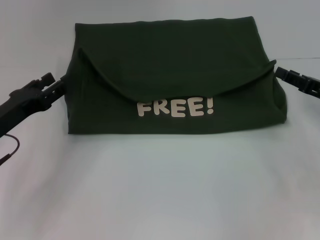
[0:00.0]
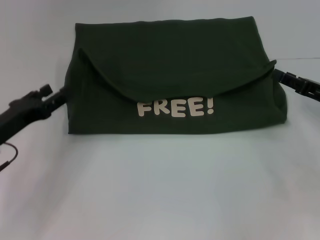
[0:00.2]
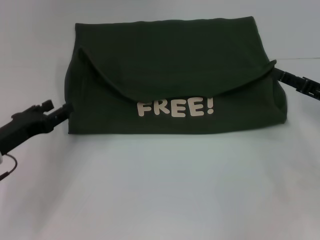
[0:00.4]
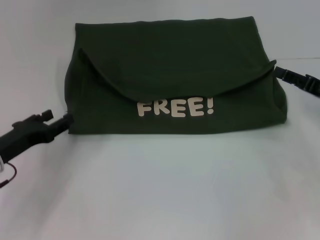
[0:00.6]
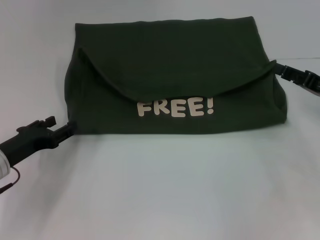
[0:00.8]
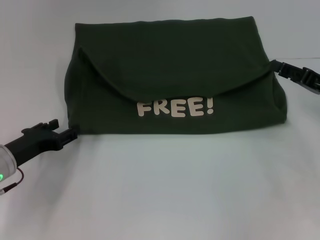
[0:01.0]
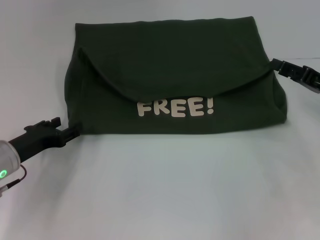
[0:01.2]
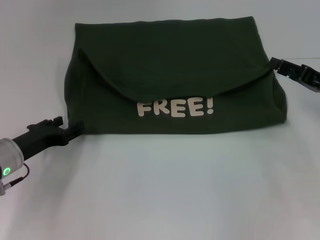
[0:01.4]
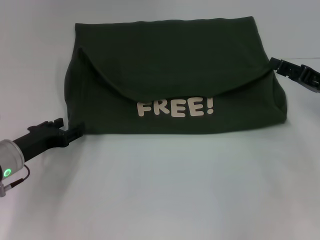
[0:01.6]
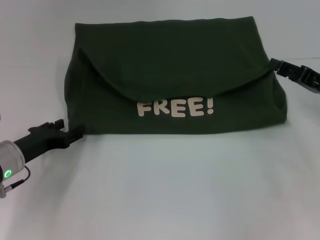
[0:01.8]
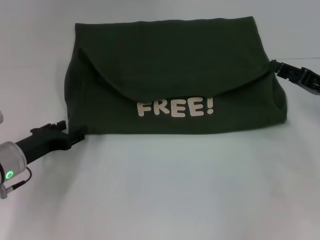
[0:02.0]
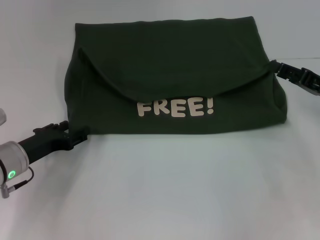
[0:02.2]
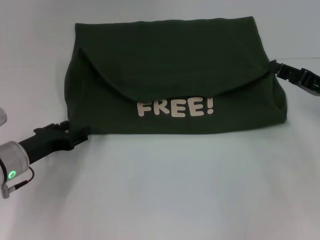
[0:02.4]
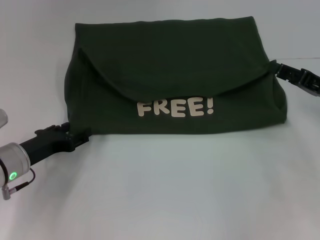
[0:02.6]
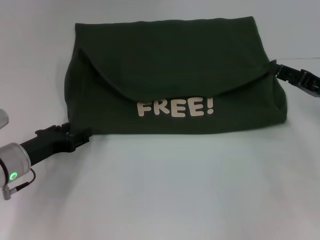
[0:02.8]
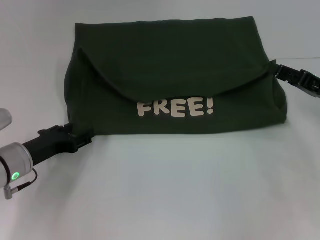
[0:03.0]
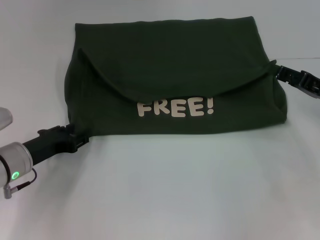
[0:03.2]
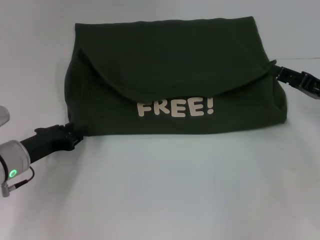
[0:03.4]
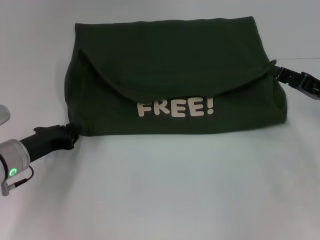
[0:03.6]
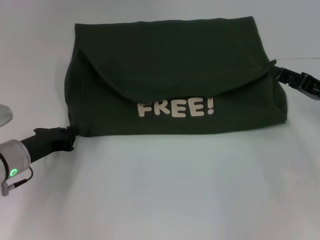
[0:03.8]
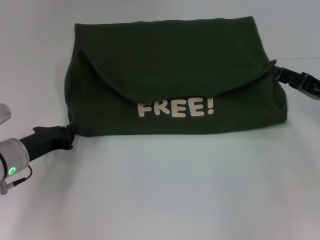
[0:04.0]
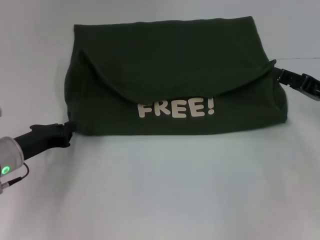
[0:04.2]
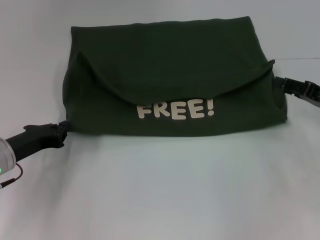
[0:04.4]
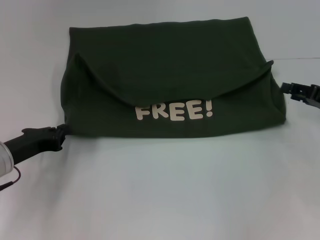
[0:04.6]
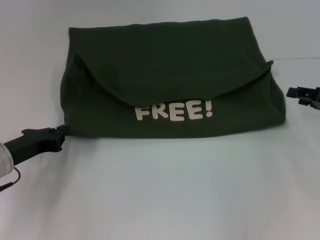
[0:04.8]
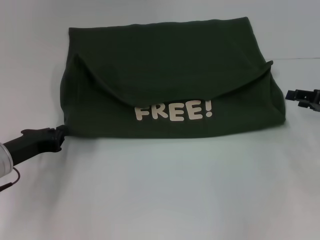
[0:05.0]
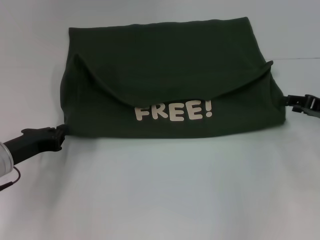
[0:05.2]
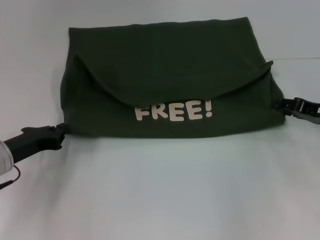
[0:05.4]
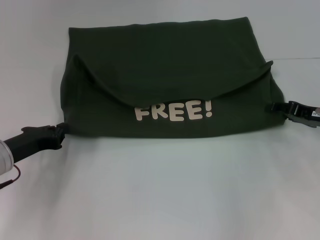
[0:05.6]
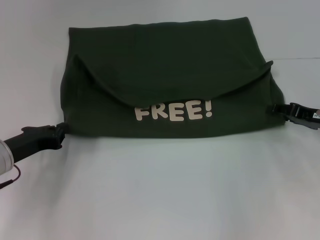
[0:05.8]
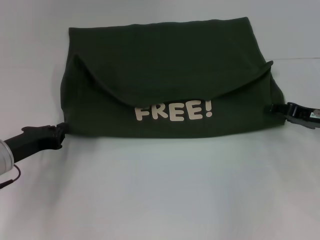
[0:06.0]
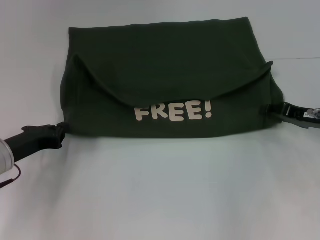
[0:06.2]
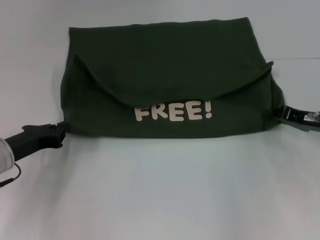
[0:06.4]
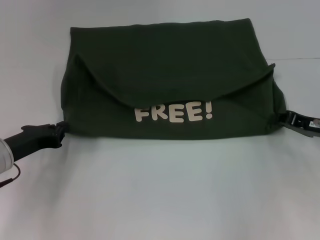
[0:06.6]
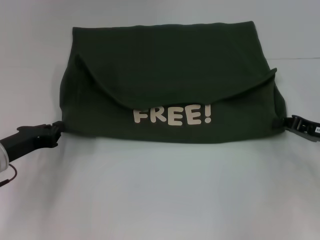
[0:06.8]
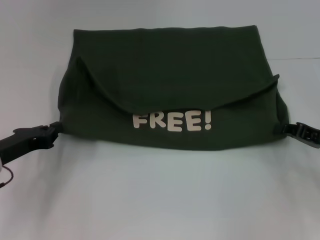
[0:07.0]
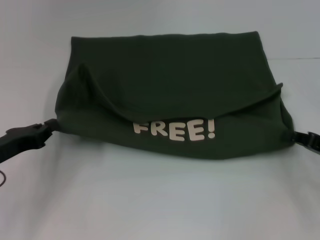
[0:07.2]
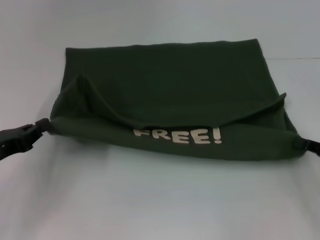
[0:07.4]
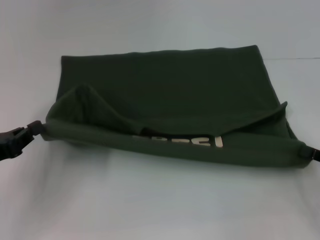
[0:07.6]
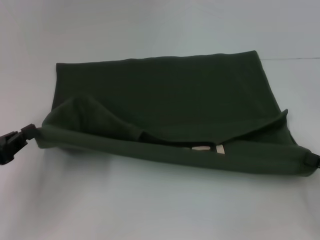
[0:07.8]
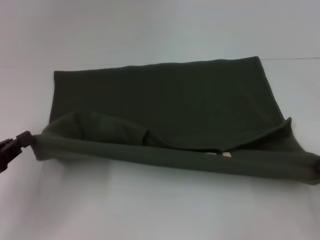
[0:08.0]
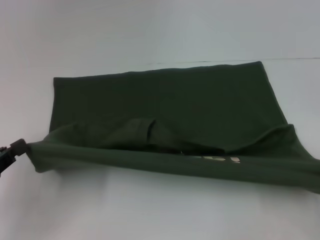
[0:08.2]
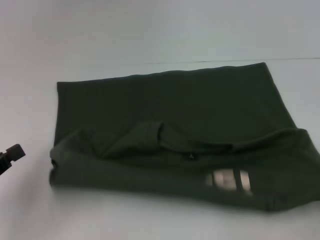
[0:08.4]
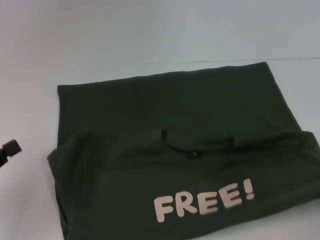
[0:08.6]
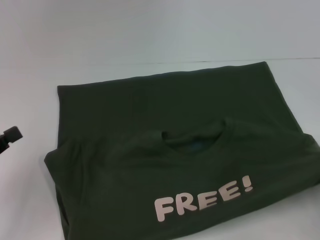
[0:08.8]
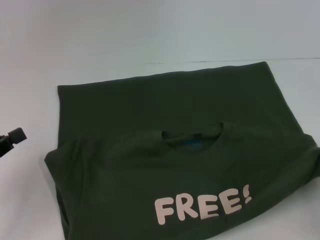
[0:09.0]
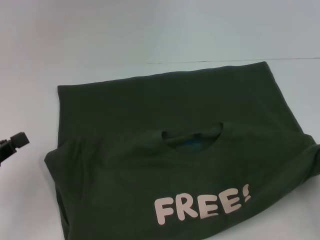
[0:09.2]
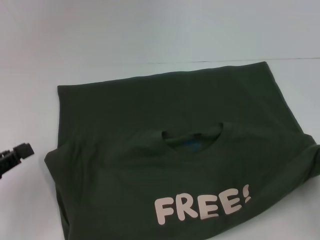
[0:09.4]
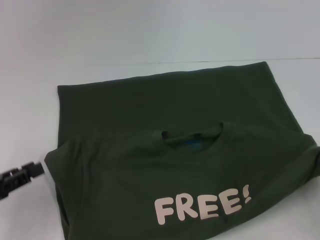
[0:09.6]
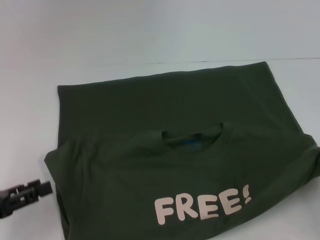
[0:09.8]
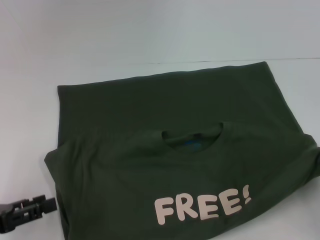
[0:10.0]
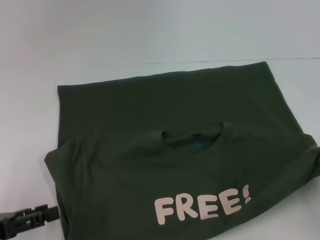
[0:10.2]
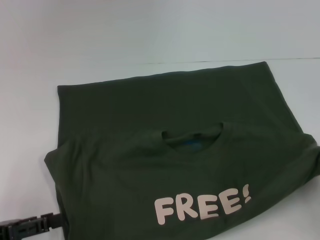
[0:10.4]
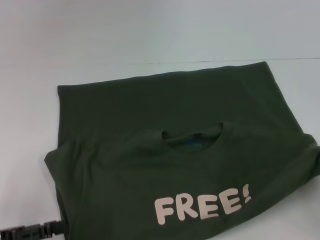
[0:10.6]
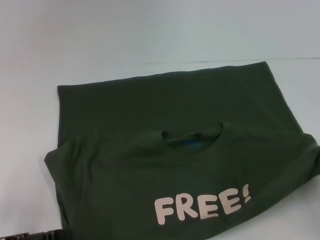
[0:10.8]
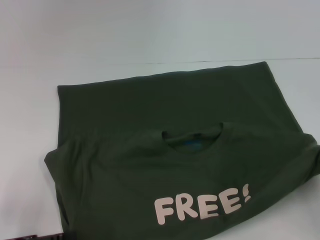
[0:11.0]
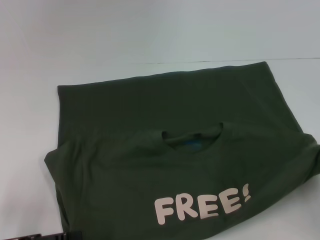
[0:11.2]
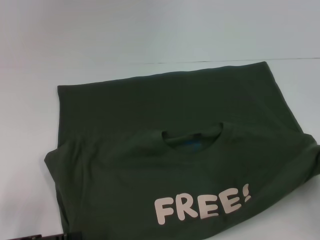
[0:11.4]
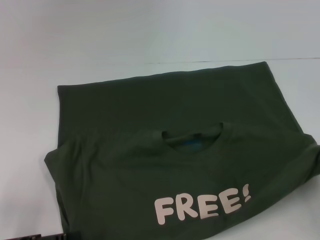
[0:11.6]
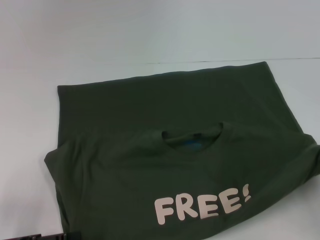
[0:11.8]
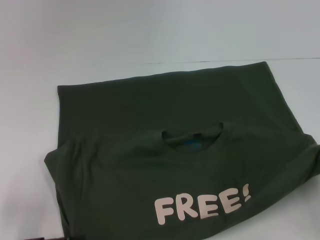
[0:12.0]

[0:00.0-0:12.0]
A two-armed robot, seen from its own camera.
0:00.0 to 0:01.6: The left gripper shifts by some 5 cm.
0:01.6 to 0:03.0: The two grippers keep their place.
0:03.0 to 0:04.4: The left gripper closes.
0:04.4 to 0:06.0: The grippers make only small movements.
0:06.0 to 0:07.6: The right gripper shifts roughly 10 cm backward, and closes; the left gripper heads backward, covering roughly 5 cm.
0:09.0 to 0:10.4: The left gripper opens its fingers.
0:10.4 to 0:12.0: The grippers move only a little.

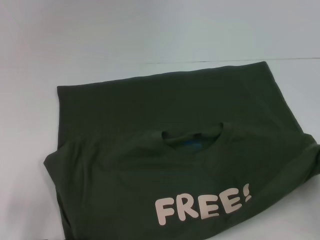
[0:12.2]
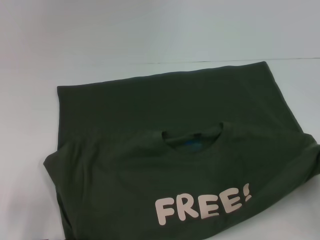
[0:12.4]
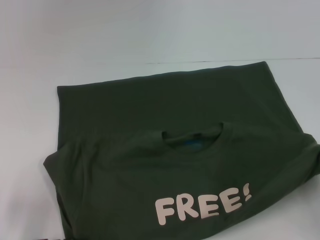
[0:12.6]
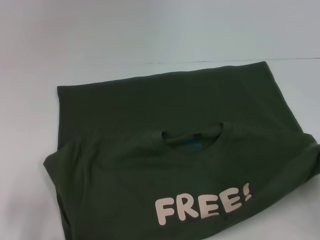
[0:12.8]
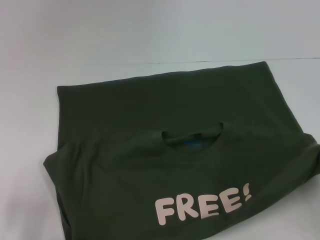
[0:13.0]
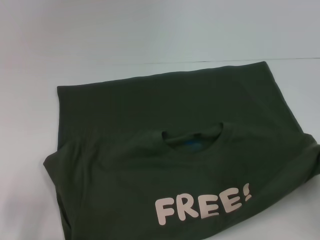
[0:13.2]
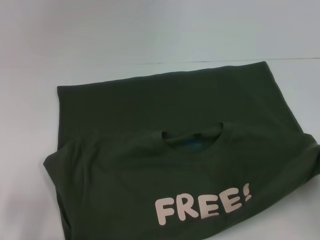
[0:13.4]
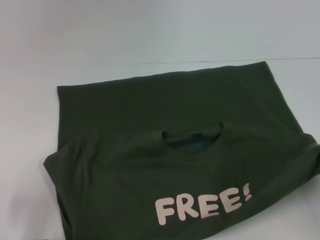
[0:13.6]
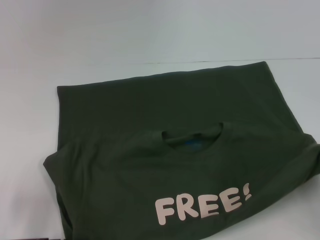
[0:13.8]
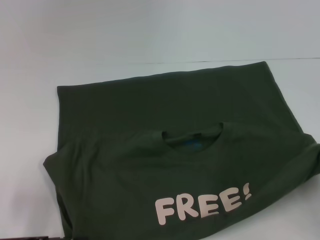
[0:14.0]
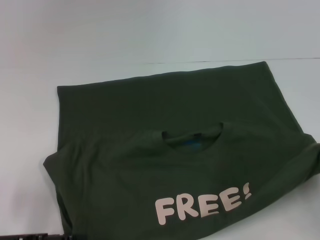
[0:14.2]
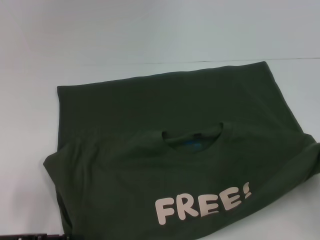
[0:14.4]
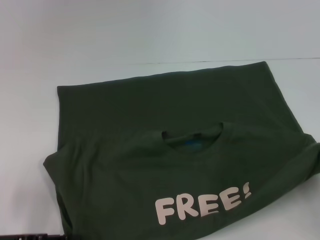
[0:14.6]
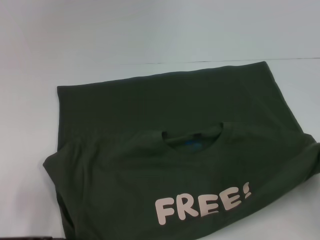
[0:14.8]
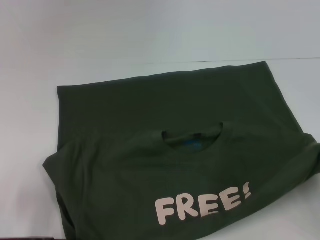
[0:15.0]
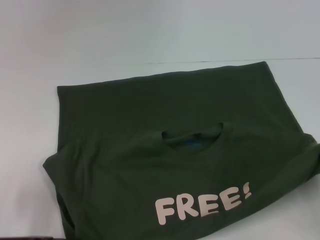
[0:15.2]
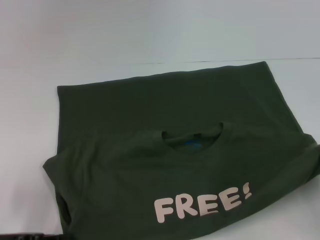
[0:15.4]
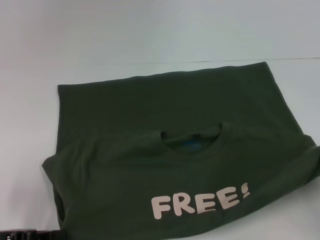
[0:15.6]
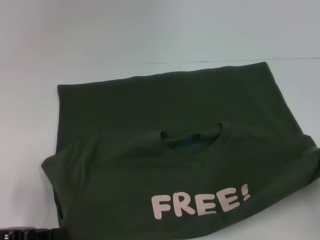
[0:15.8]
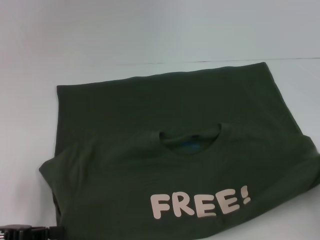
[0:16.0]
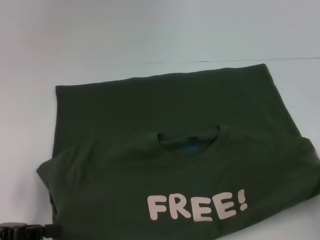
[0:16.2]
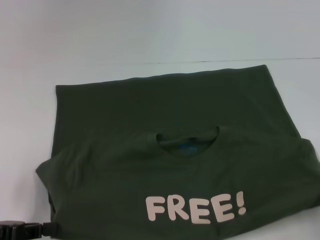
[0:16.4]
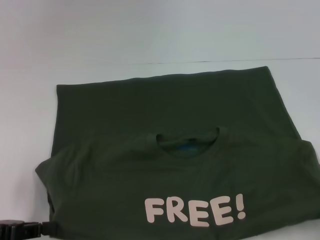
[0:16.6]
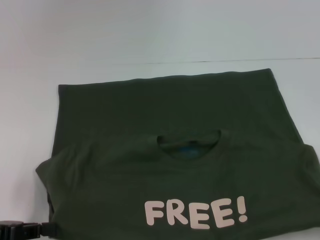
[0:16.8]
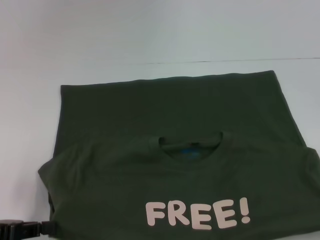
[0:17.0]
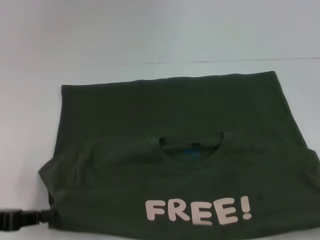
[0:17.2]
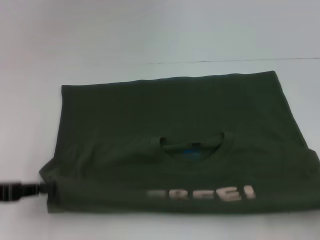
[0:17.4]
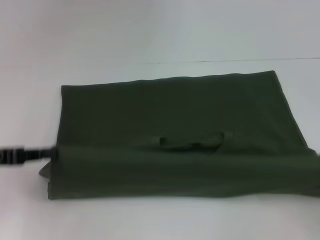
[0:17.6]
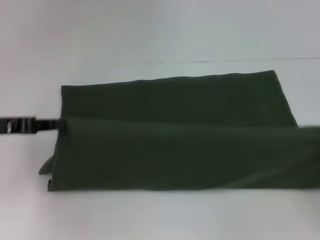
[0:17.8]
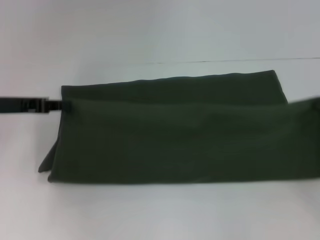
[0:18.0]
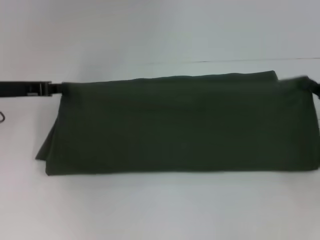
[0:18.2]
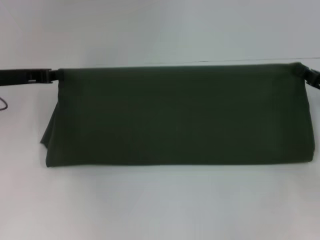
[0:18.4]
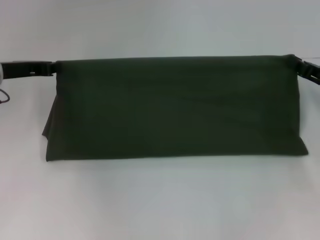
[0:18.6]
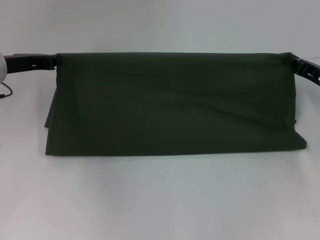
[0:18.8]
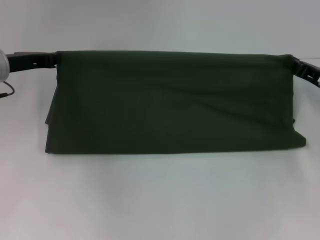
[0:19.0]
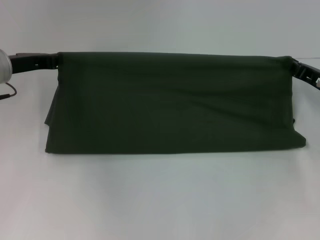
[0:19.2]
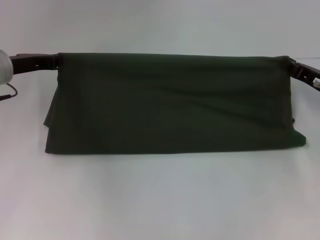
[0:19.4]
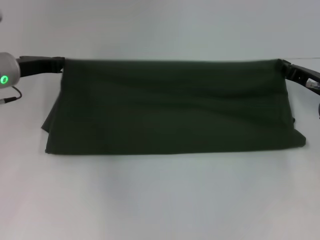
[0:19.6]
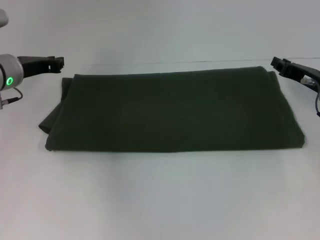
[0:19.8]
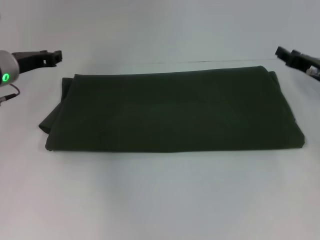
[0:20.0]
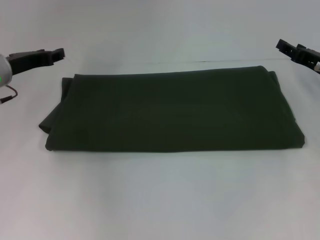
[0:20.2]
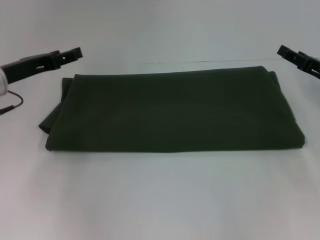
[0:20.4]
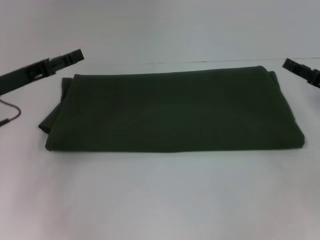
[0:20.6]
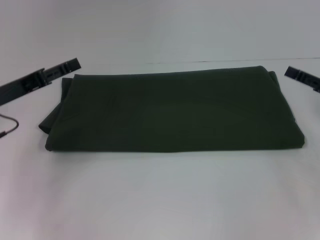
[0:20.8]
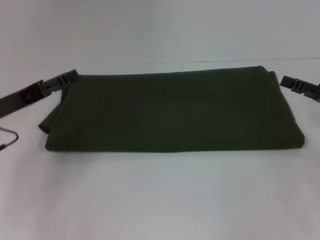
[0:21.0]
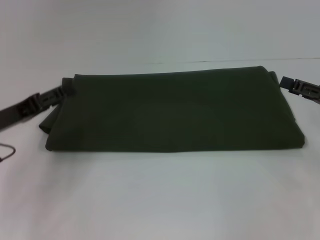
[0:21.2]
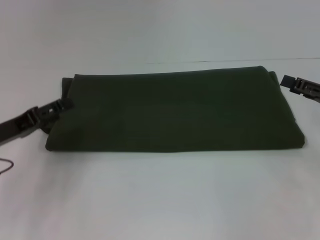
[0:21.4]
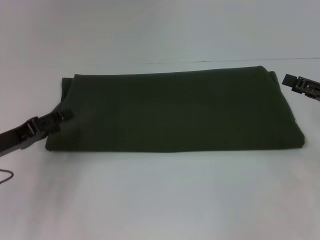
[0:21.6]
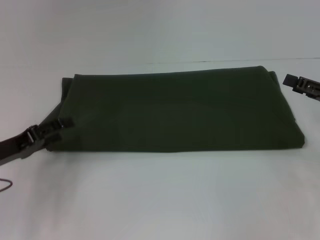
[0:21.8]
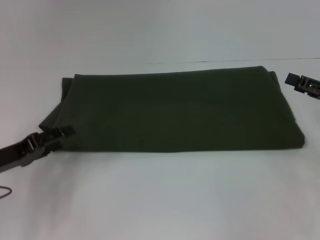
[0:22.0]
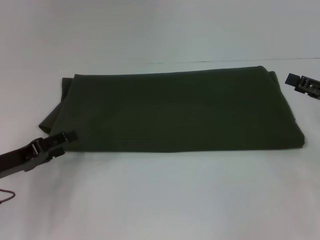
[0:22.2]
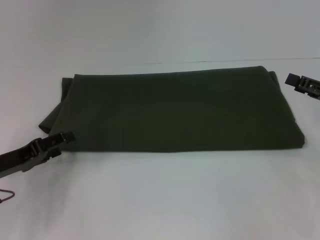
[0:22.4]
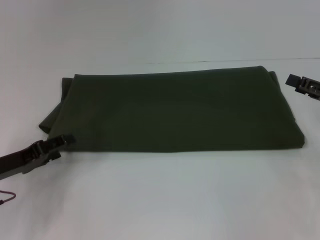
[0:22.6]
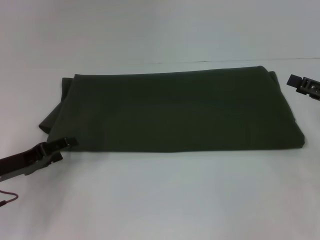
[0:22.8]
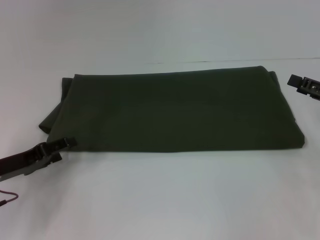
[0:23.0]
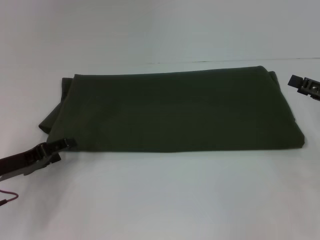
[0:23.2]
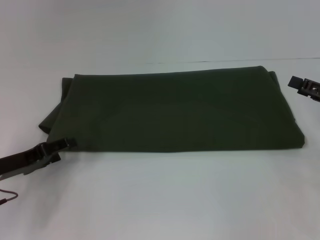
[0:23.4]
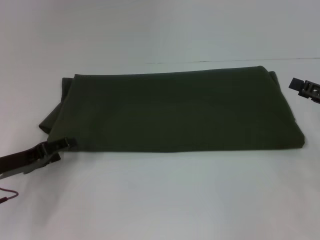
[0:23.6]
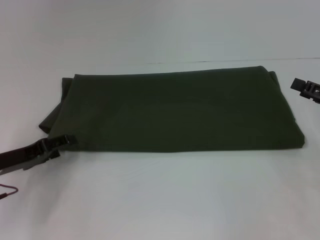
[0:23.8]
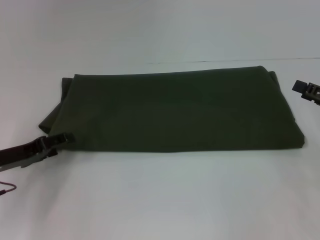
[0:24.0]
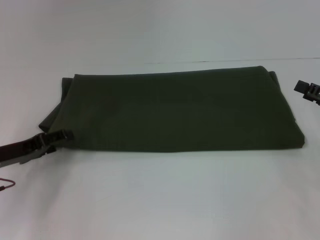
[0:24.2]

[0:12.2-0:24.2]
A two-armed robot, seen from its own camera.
Step, 0:12.2 to 0:17.0: Pull the clothes with your left hand.
Step, 0:12.2 to 0:17.0: Pull the clothes with your right hand.
Step, 0:17.2 to 0:19.6: Fold the clothes with your right hand.
0:12.2 to 0:13.8: Both grippers stay put.
0:15.2 to 0:16.6: The right gripper is displaced backward by some 5 cm.
0:16.6 to 0:18.2: The grippers both shift forward by some 20 cm.
0:18.2 to 0:19.8: The right gripper heads forward and to the left, covering approximately 10 cm. The left gripper ends up about 5 cm from where it was.
0:19.8 to 0:21.2: The right gripper heads backward and to the right, covering some 10 cm, and opens its fingers. The left gripper shifts roughly 10 cm backward, and opens its fingers.
0:21.2 to 0:22.6: The left gripper moves about 5 cm.
0:22.6 to 0:24.2: The grippers move only a little.
